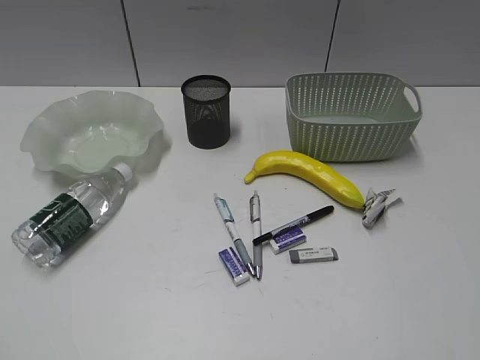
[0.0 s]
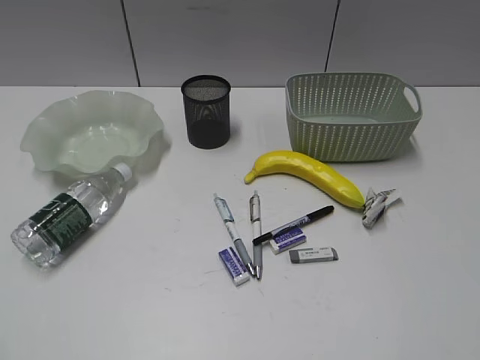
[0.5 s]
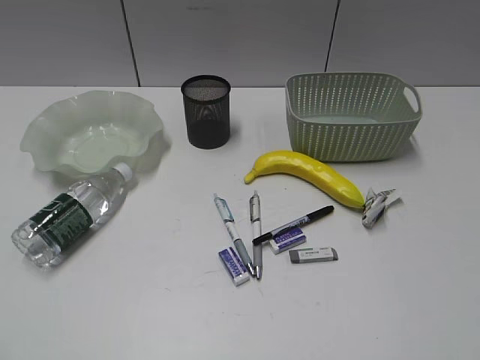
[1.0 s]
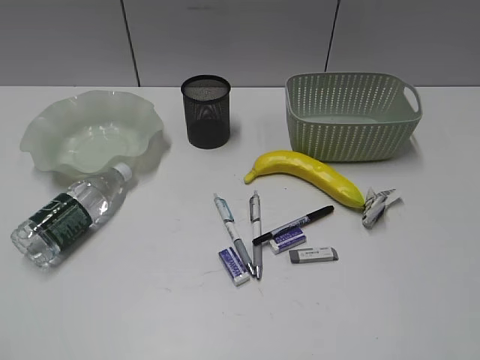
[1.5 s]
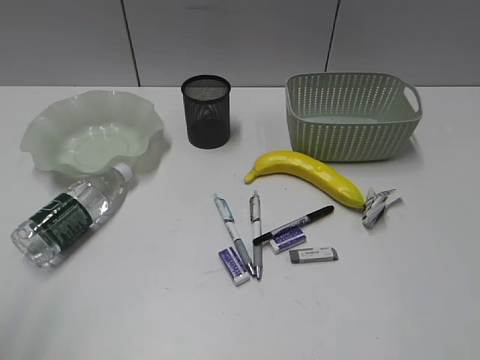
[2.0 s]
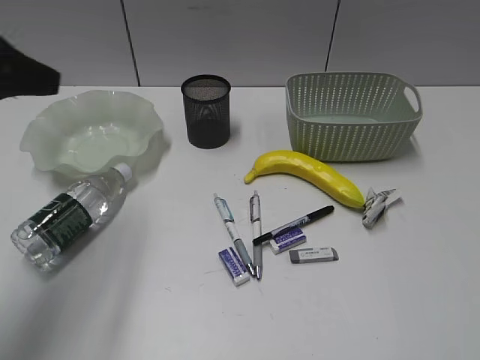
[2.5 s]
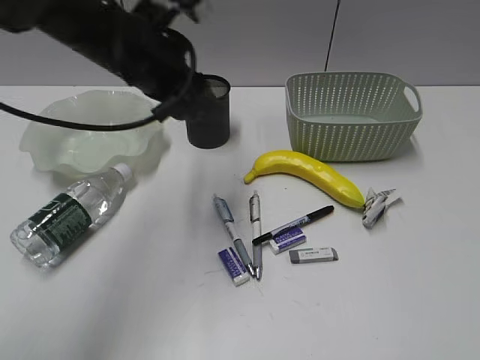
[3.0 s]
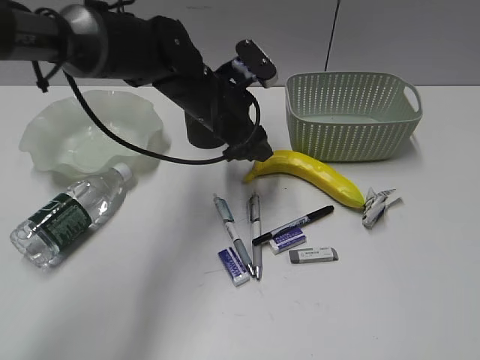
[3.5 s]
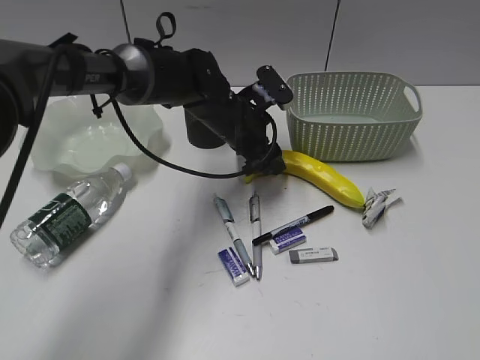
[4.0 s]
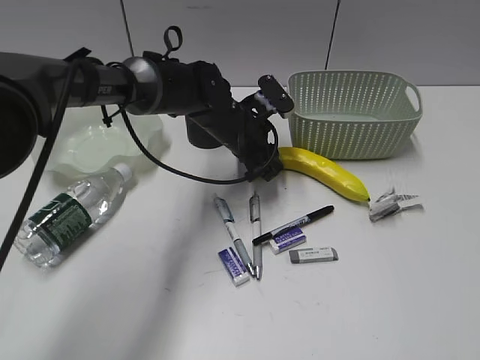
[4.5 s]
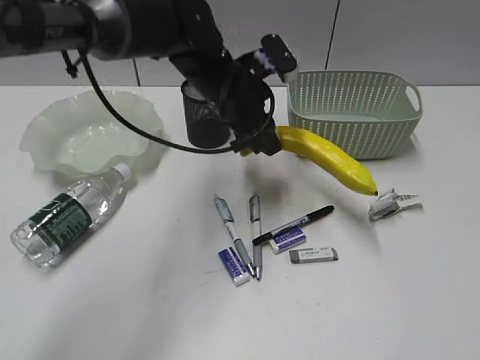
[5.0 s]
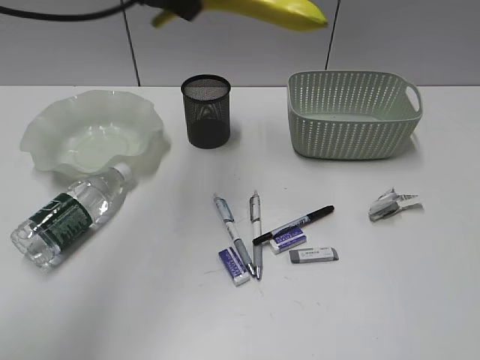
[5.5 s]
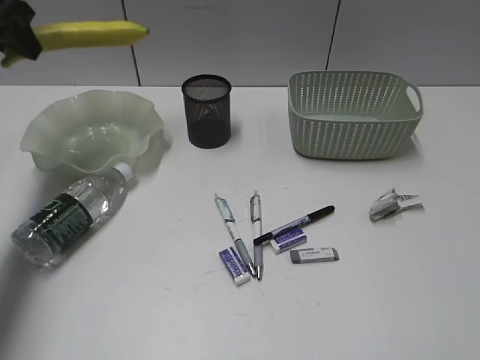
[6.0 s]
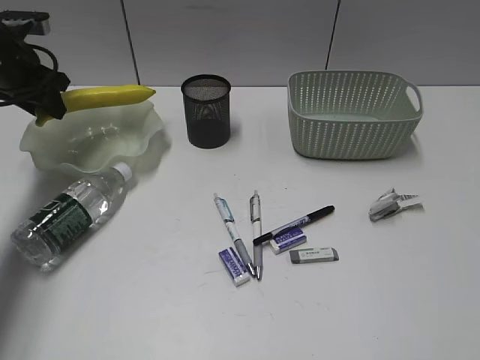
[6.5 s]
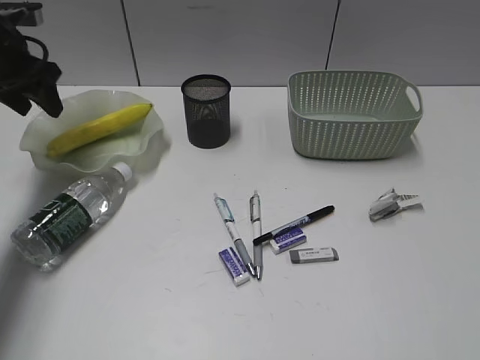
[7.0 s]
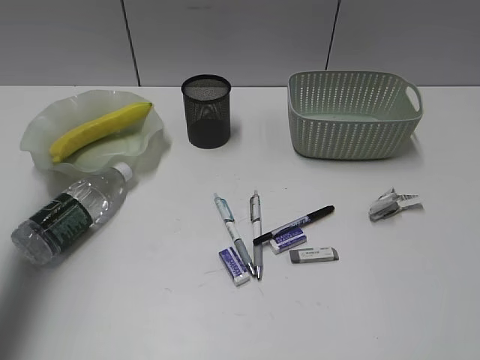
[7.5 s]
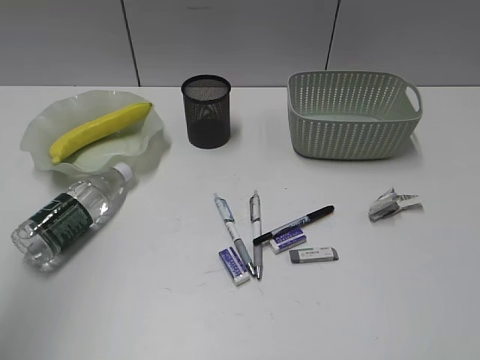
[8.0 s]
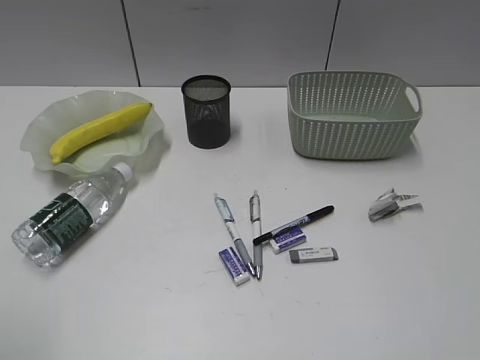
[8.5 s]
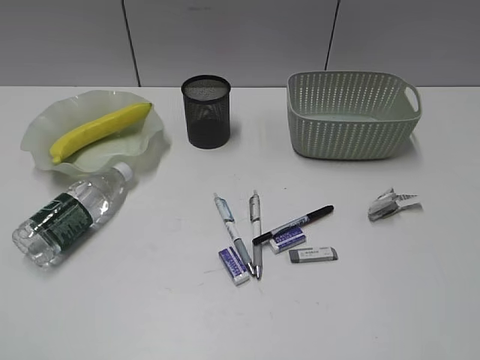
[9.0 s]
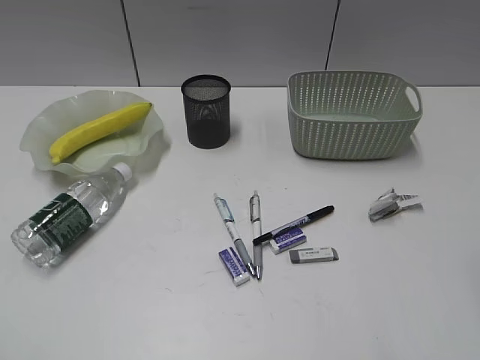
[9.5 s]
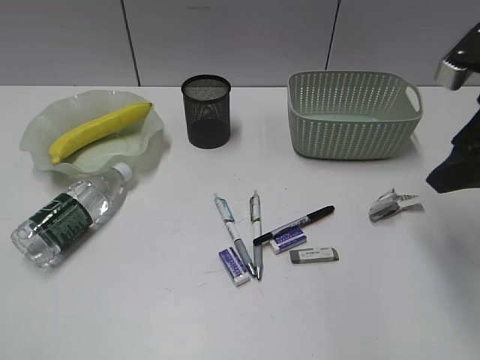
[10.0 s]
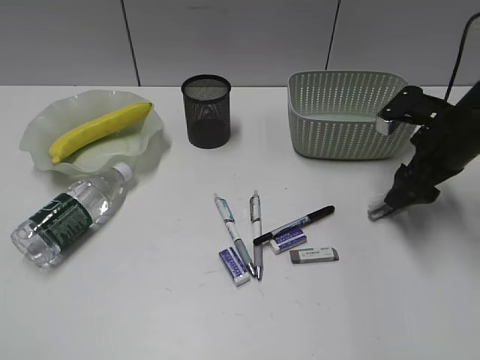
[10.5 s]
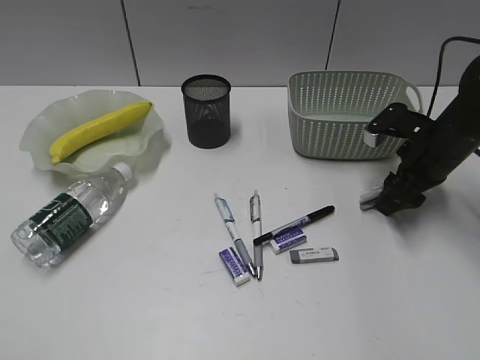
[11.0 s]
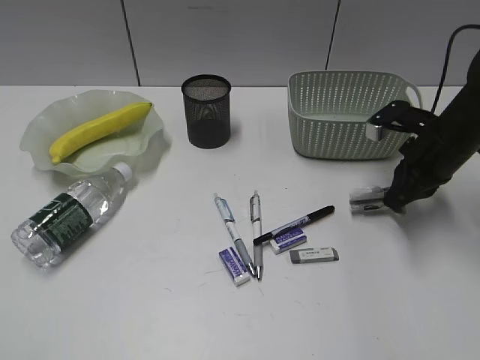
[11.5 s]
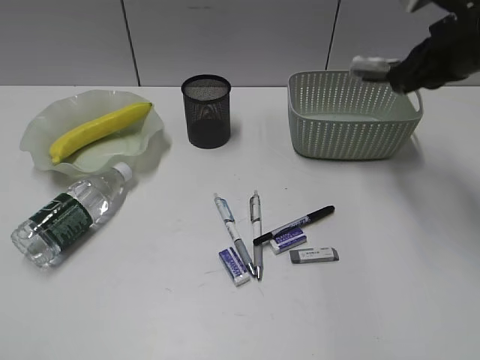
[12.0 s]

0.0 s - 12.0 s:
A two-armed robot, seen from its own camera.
Step, 1.5 s - 4.5 s: Grasp the banana with left gripper.
Step, 5.0 s - 6.5 s: Place the banana in the plate with left gripper.
Step, 7.0 s - 11.0 s: Grasp the waste paper with right gripper.
2.0 s - 4.0 s: The left gripper shifts roughly 50 cm forward, to the right and downward, and opens.
4.0 s - 6.0 s: The left gripper moves to the left and upward, some 35 cm, and closes.
6.0 s - 8.0 s: The left gripper goes about 30 cm backward and upward.
8.0 s - 10.0 s: The right gripper travels forward by roughly 30 cm, and opens up. The left gripper is displaced downward and backward by about 25 cm.
10.0 s - 12.0 s: The right gripper heads forward, covering roughly 10 cm, moves about 15 cm downward and comes back, and closes.

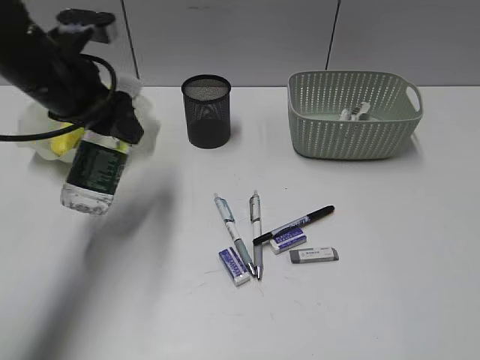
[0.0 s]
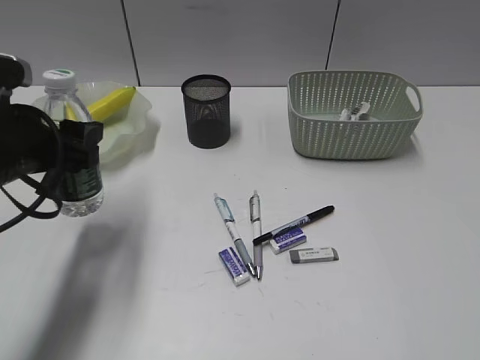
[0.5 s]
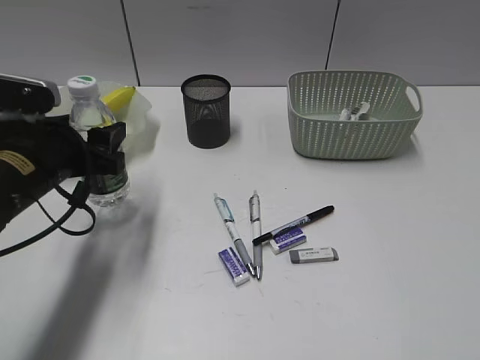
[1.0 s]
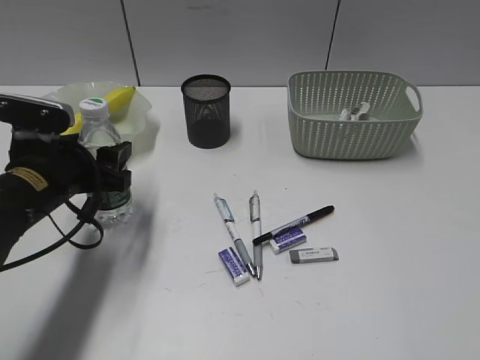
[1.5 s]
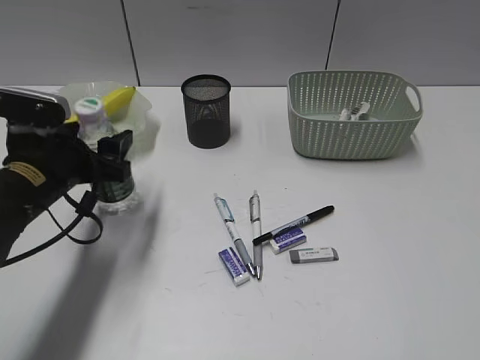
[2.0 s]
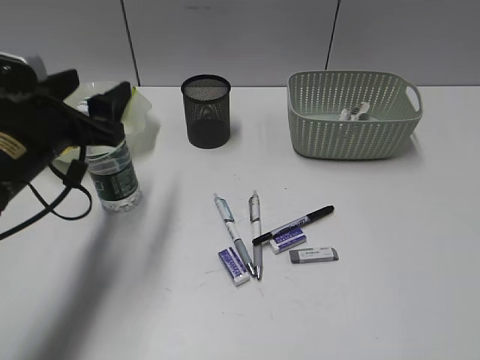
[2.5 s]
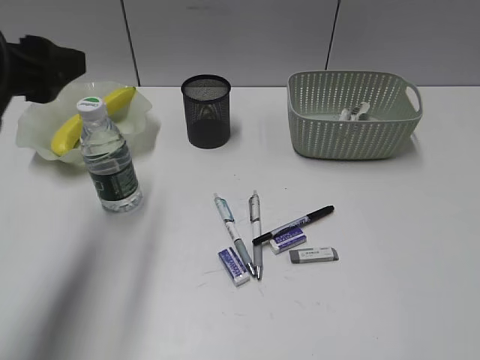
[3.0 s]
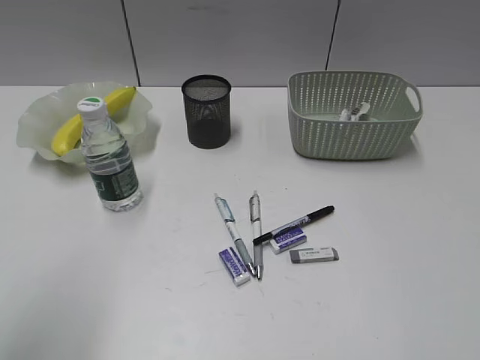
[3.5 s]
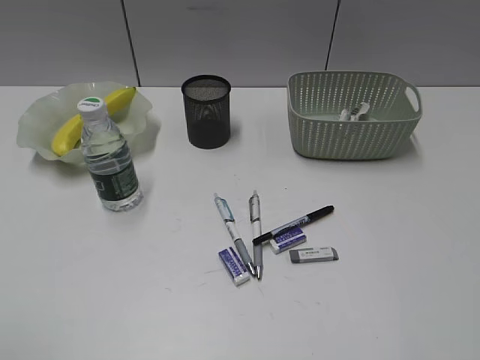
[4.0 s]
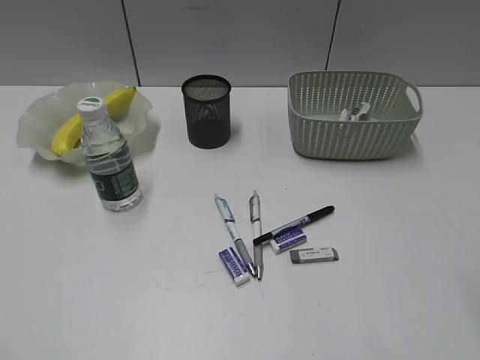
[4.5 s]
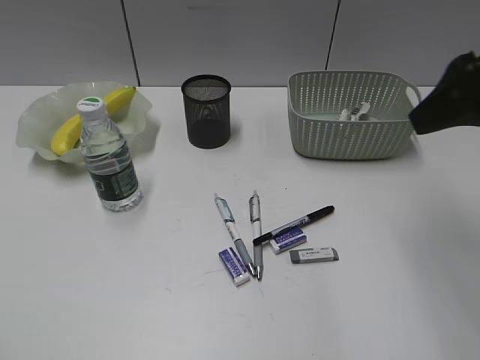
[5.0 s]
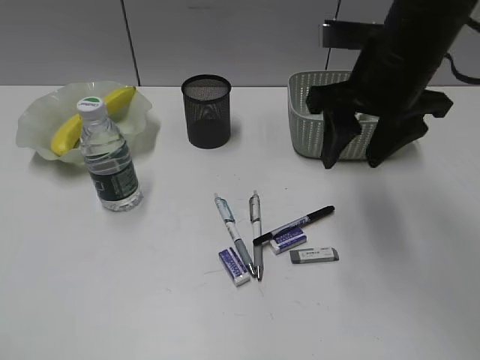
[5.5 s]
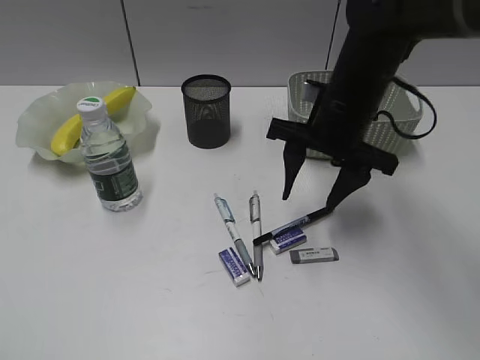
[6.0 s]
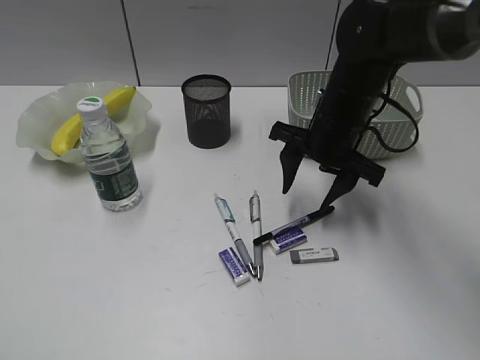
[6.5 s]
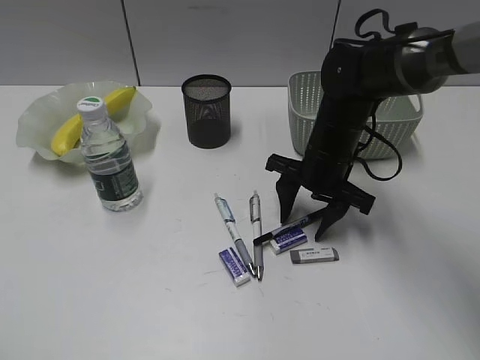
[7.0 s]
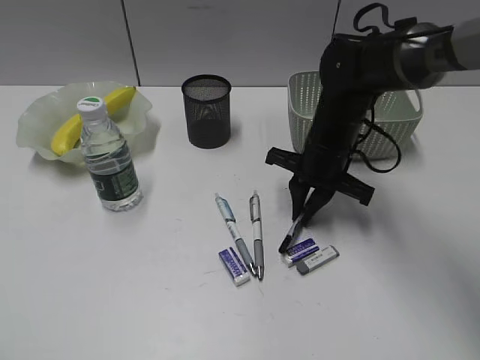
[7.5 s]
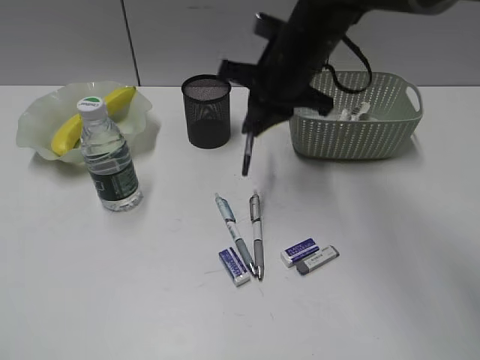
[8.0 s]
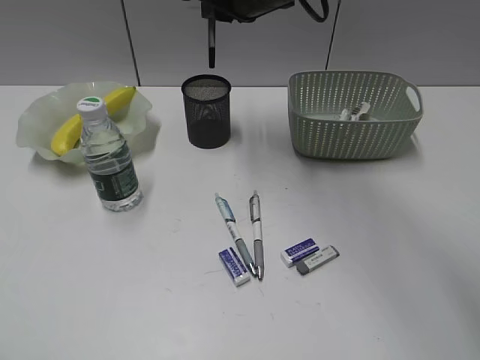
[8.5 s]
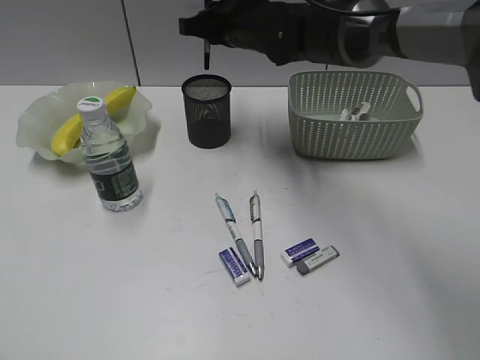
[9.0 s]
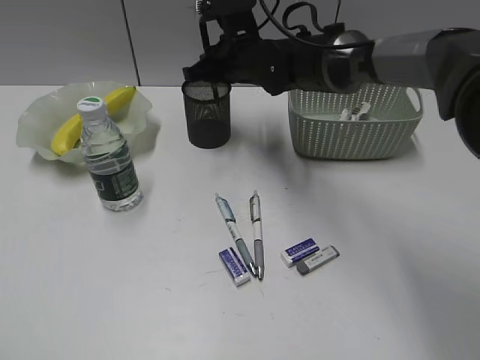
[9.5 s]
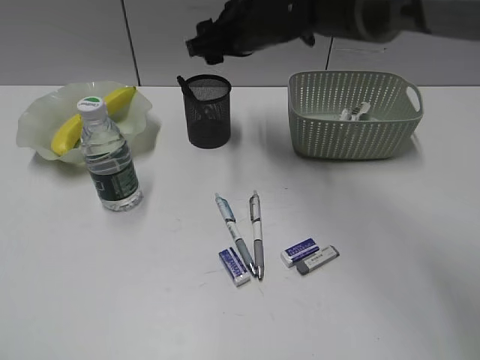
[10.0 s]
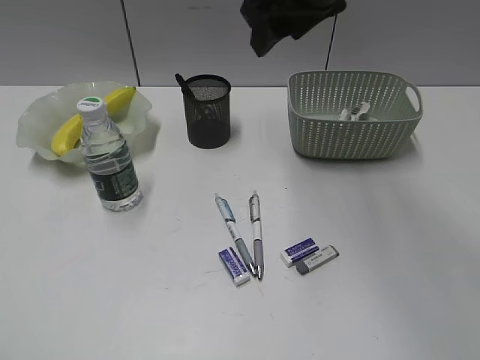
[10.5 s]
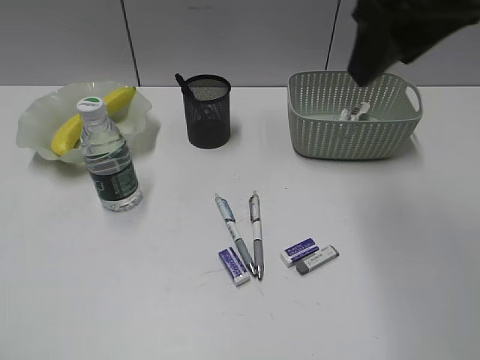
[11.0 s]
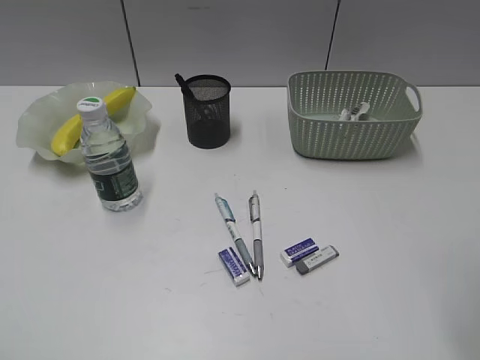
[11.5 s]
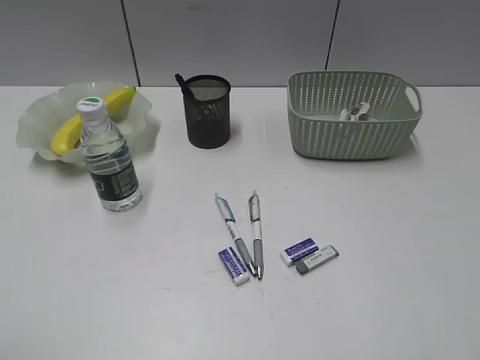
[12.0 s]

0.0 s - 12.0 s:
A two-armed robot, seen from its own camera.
Step, 0.0 s - 2.5 s: Stand the bottle with left gripper.
Step, 3.0 s - 7.0 s: Grasp the black pen with right gripper.
Step, 7.5 s - 9.5 s: Place the black pen in pen holder with right gripper.
0.0 s - 2.0 s: The left gripper heads downward and backward, covering some 10 cm.
2.0 s - 4.0 s: The left gripper is displaced backward and upward by some 30 cm.
4.0 s - 6.0 s: The right gripper shifts approximately 40 cm forward and to the left.
6.0 s - 8.0 s: The right gripper is displaced to the left by roughly 5 cm, goes downward and returns, roughly 10 cm each way, and closes its fingers.
8.0 s - 10.0 s: The right gripper swings up and down, roughly 10 cm each way, with 2 reversals, and opens.
10.0 s - 12.0 s: The right gripper is displaced backward and to the right by roughly 50 cm.

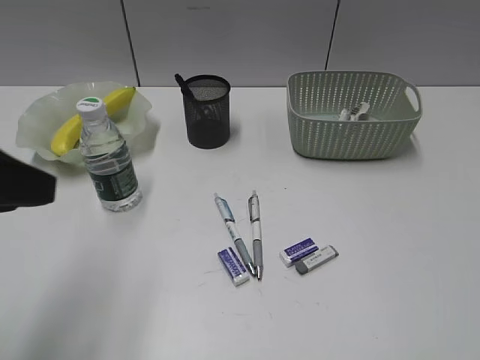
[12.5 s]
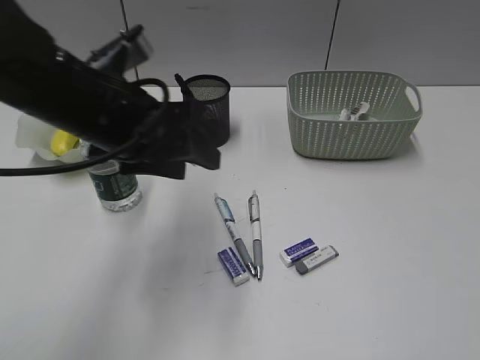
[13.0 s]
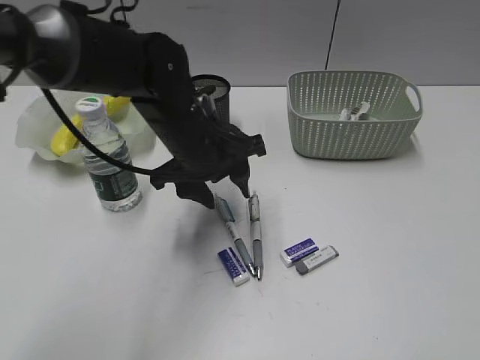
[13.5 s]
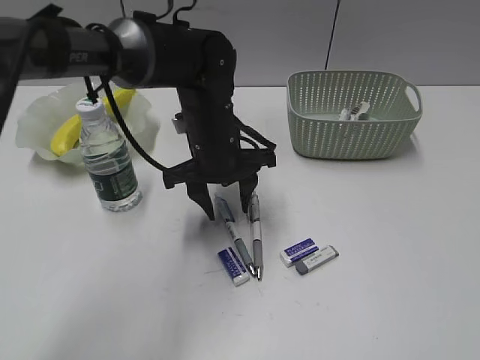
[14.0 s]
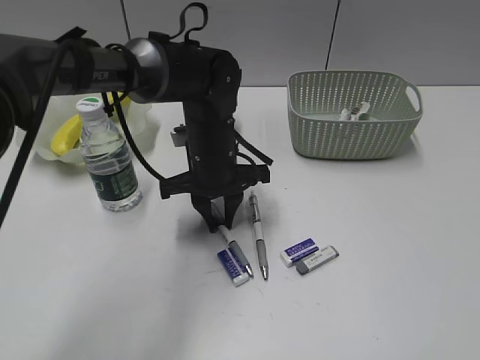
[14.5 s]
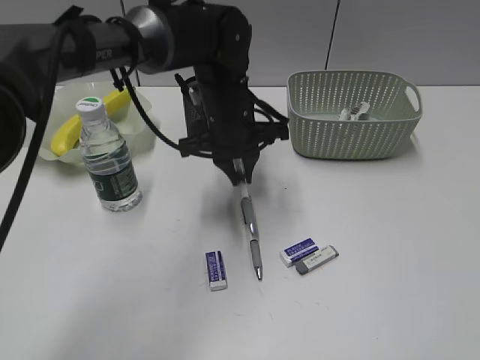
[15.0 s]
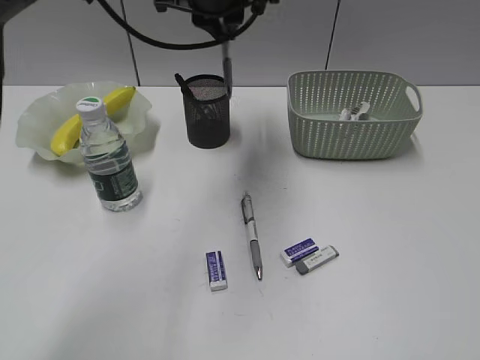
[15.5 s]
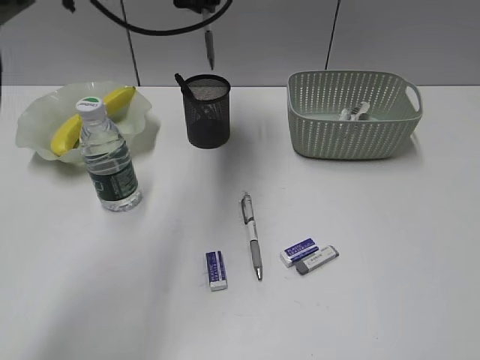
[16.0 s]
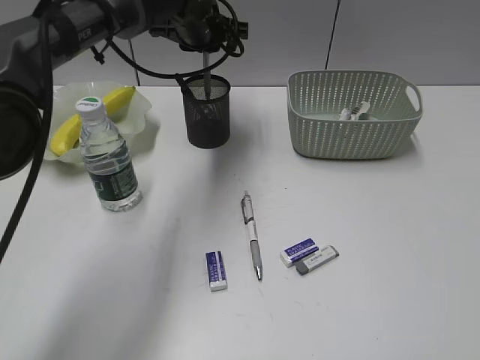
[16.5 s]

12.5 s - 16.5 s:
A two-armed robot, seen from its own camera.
Step, 12.5 s - 14.5 s: Grasp the blue pen with left gripper.
12.5 s - 14.5 s: The left gripper heads to the right, forward and downward, covering approximately 35 cm, and closes up.
14.5 s - 16.5 s: The left gripper heads forward and upward, covering about 20 cm.
